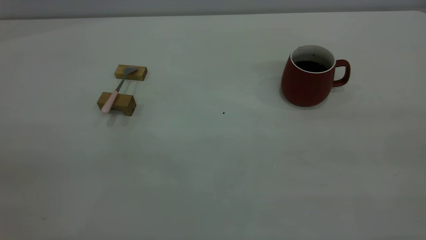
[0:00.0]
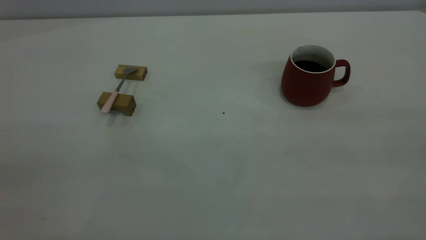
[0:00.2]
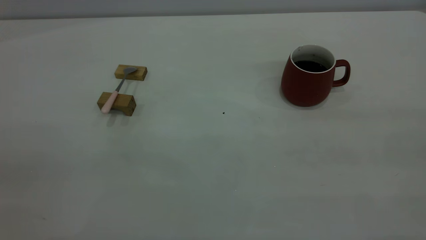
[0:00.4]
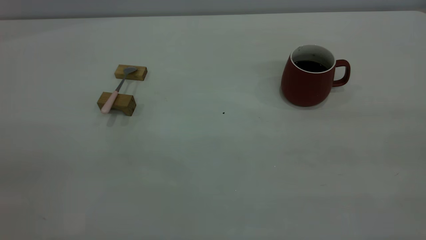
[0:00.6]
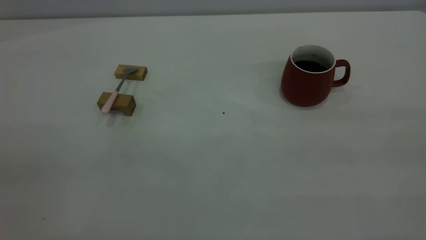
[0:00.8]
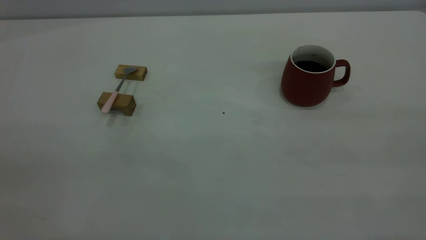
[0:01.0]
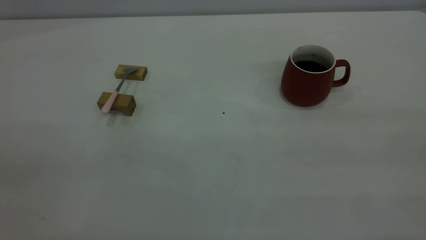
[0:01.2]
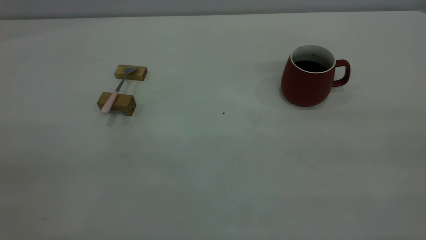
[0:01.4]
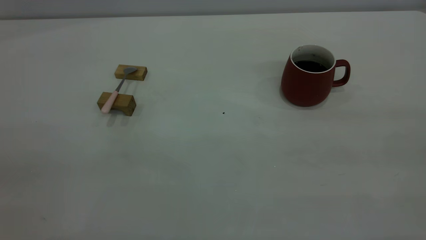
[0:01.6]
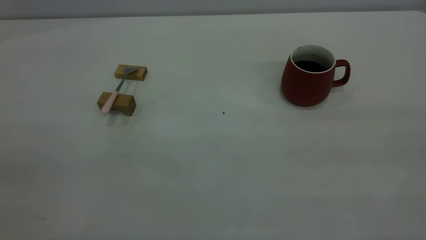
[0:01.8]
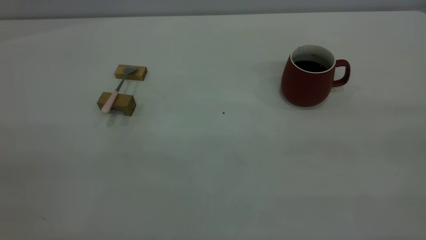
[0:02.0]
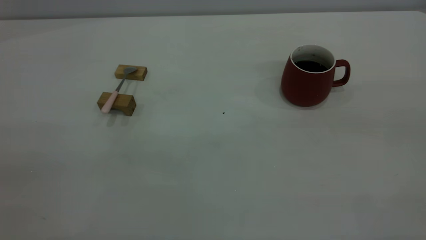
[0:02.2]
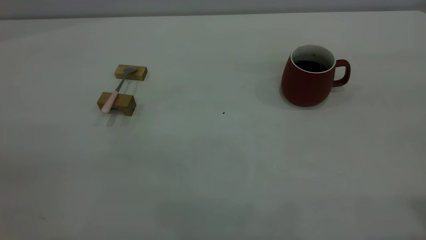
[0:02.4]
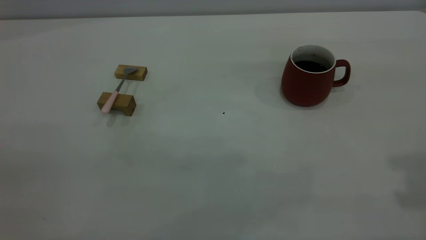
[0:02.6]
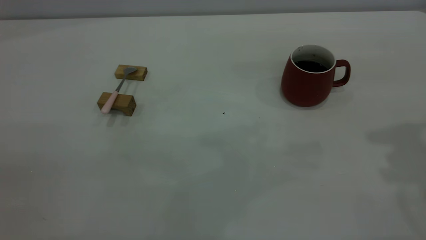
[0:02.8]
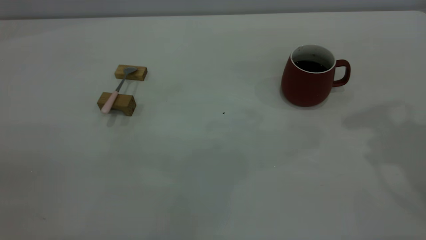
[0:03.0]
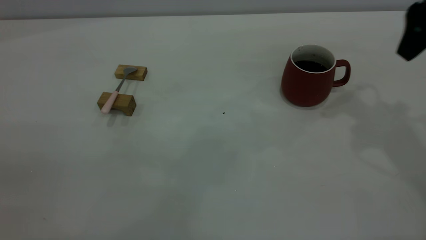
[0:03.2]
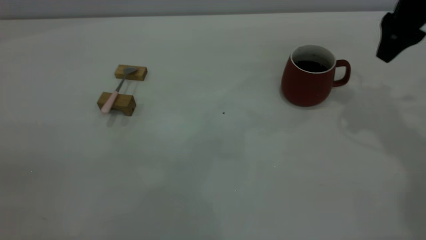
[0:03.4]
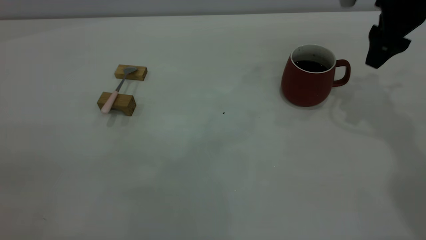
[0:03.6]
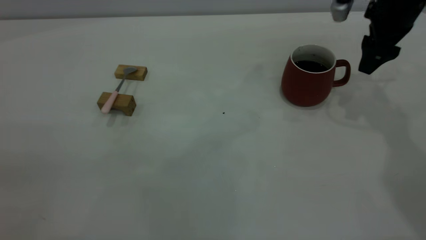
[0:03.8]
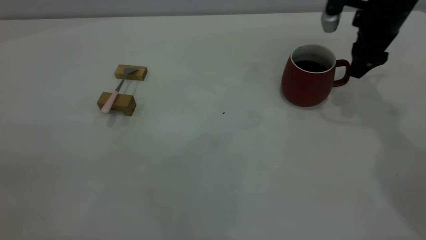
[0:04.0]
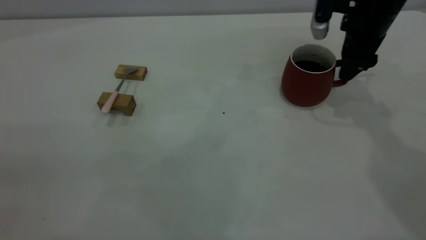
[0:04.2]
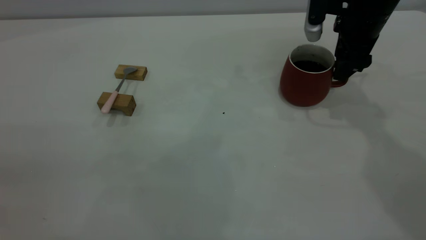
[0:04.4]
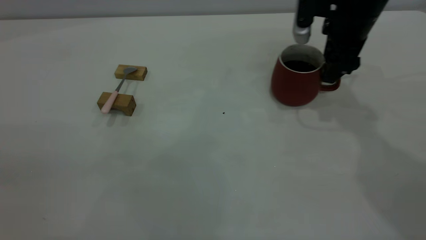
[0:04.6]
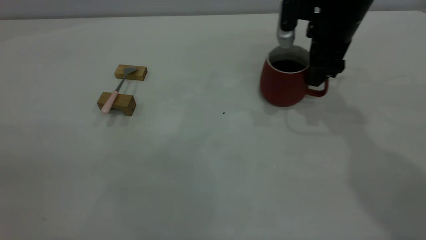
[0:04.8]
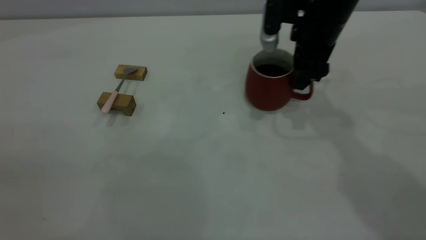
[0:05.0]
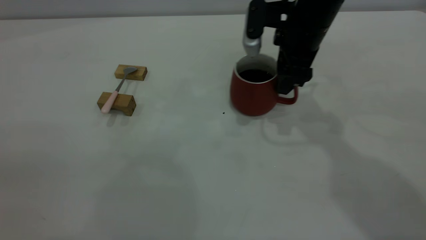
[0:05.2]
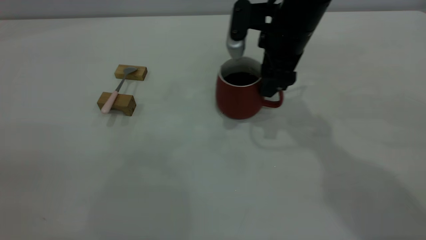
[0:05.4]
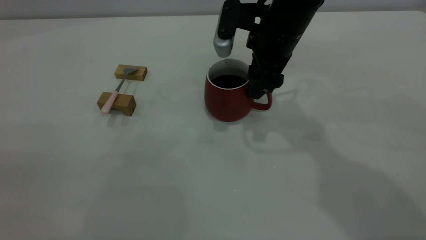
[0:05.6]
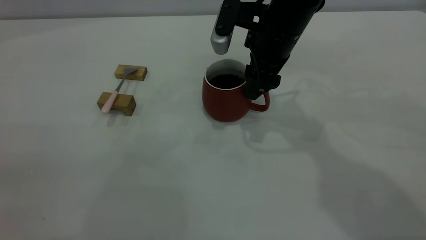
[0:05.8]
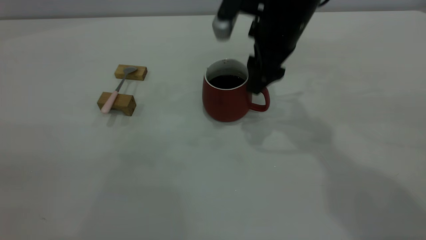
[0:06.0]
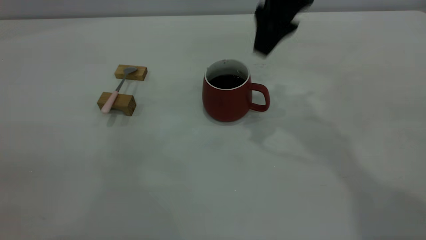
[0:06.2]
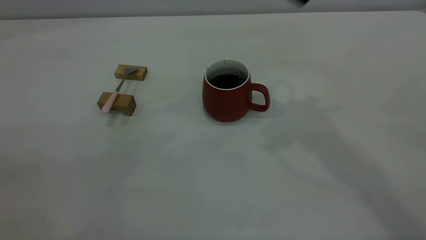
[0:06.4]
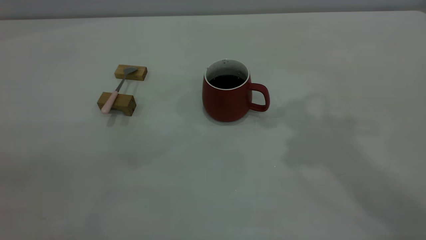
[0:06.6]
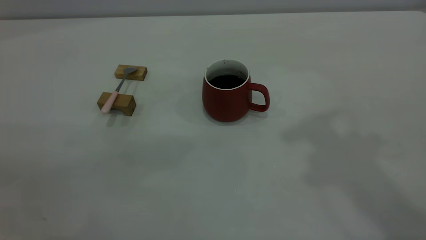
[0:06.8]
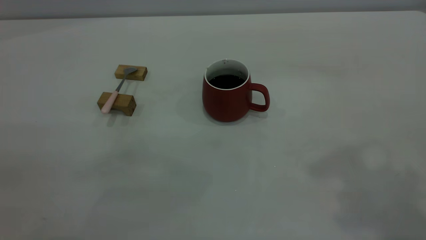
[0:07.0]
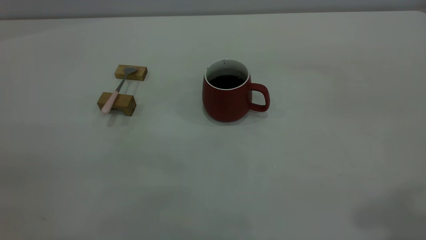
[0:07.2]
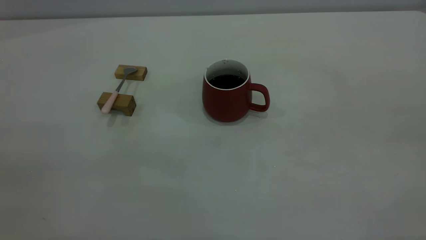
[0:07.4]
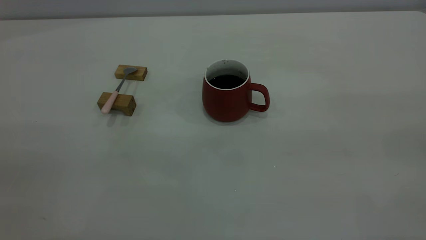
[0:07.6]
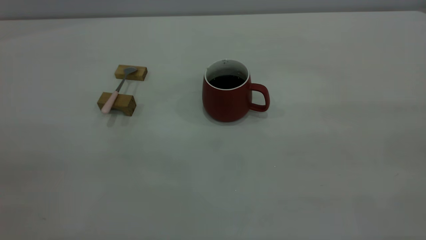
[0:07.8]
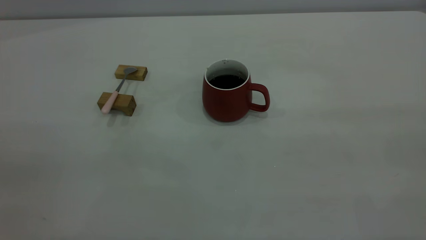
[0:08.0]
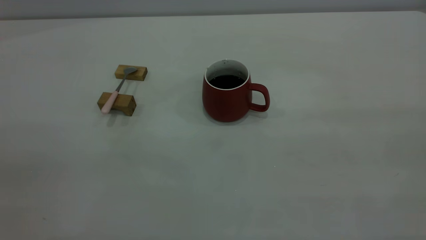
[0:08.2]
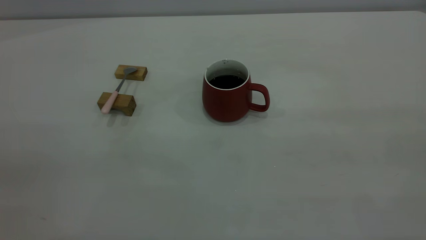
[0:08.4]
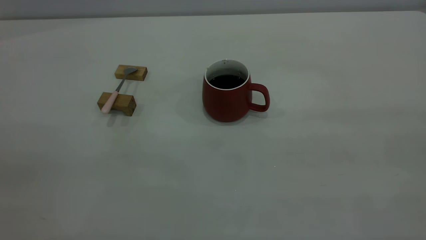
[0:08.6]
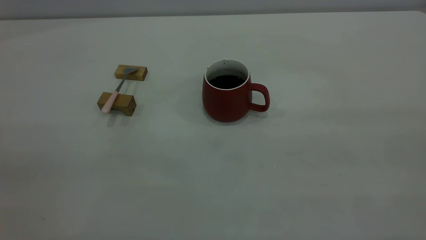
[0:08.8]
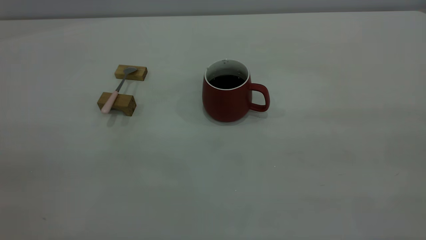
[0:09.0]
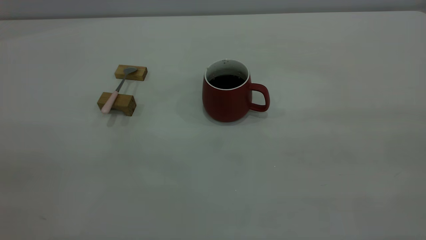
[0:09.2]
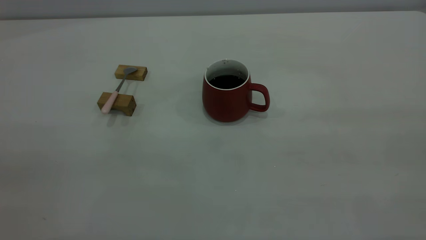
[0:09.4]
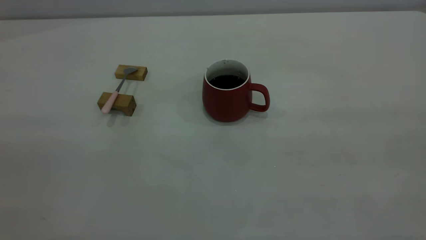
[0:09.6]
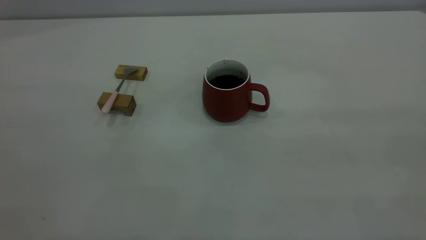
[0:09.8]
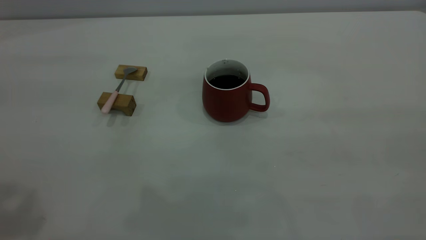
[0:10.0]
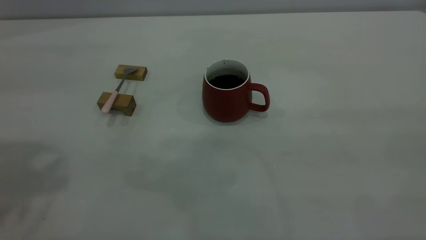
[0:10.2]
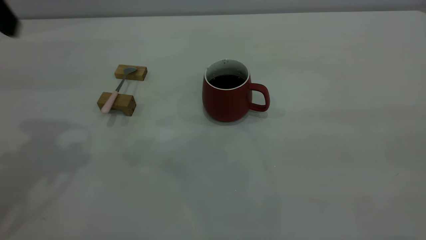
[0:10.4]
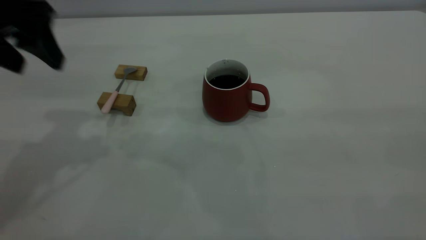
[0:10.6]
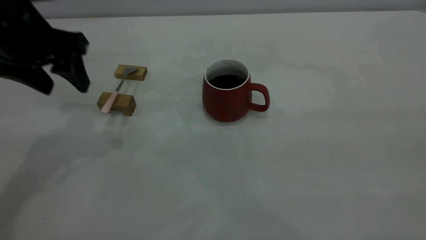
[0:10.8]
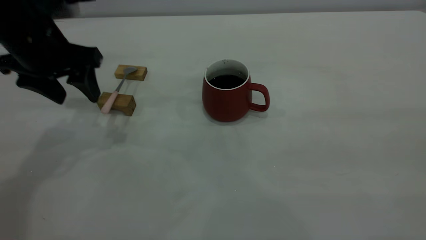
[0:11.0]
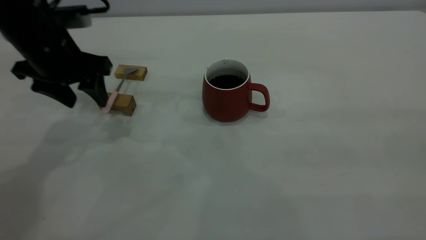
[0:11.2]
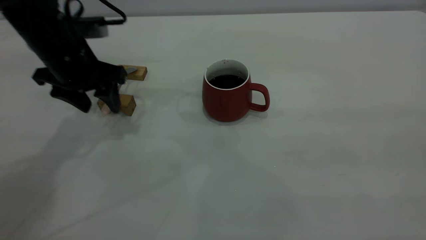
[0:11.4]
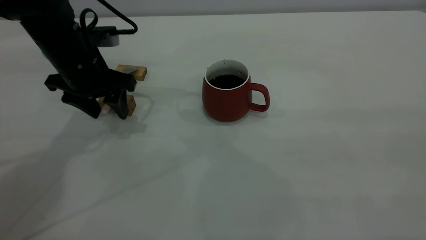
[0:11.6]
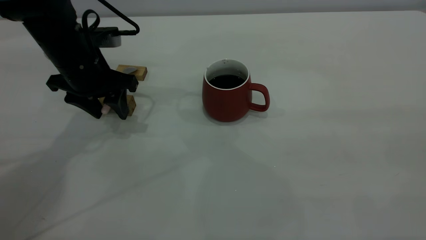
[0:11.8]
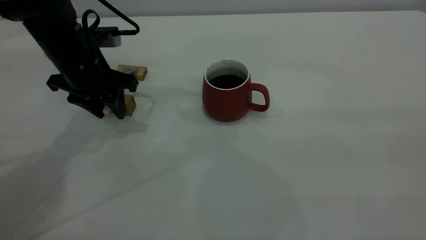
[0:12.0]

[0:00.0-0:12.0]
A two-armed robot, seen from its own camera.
Step, 0.0 to 6.0 s: Move the cup with coffee to the center of view.
0.0 to 1.6 s: Neither gripper changes place.
3.0 to 4.4 s: The right gripper is displaced downward, forward and to the left by approximately 20 cm.
4.4 to 6.0 s: The right gripper travels to the left by about 15 cm.
6.0 to 7.6 s: The right gripper moves backward, to the right and upward, some 50 cm.
10.4 to 12.0 s: The left gripper moves downward and forward, some 20 cm, and closes.

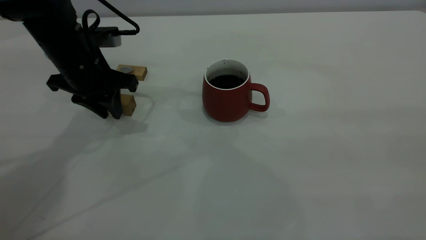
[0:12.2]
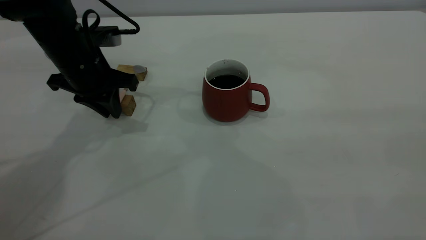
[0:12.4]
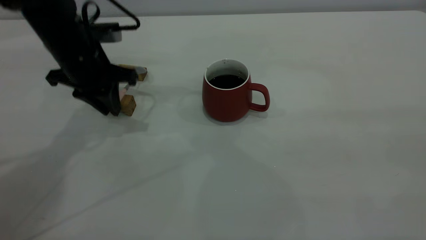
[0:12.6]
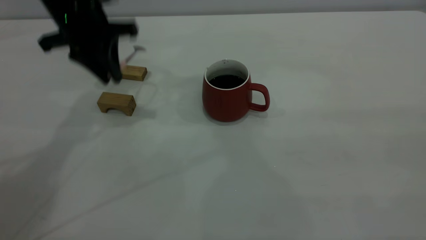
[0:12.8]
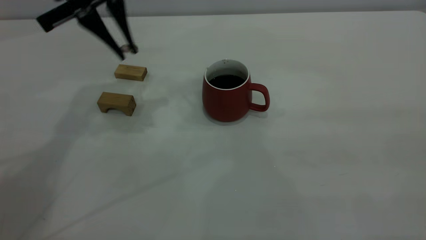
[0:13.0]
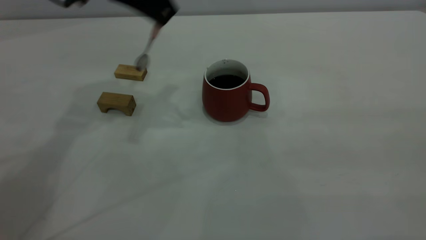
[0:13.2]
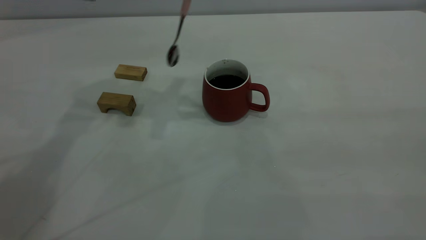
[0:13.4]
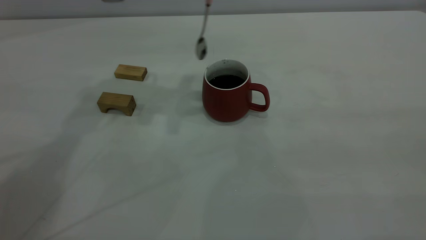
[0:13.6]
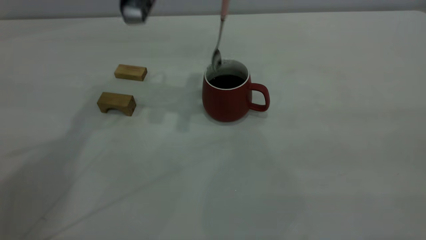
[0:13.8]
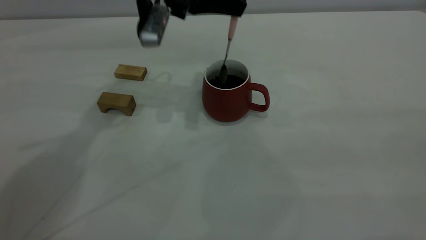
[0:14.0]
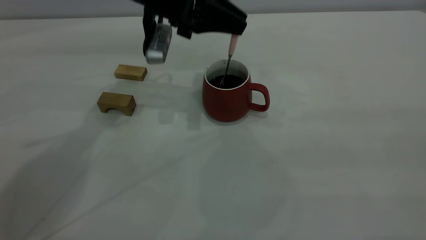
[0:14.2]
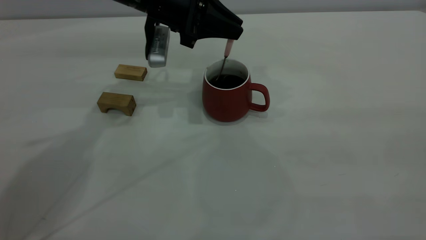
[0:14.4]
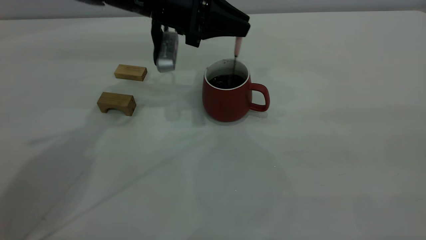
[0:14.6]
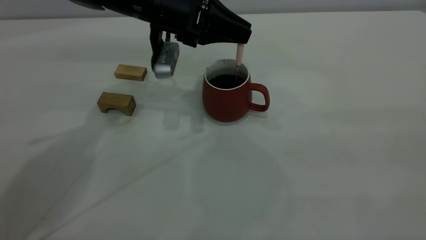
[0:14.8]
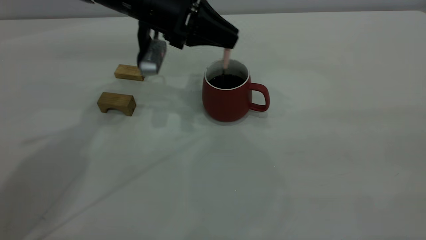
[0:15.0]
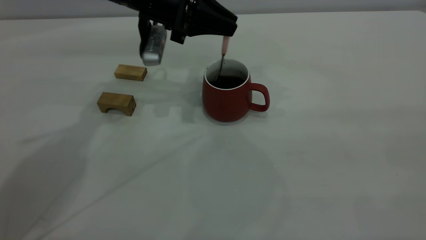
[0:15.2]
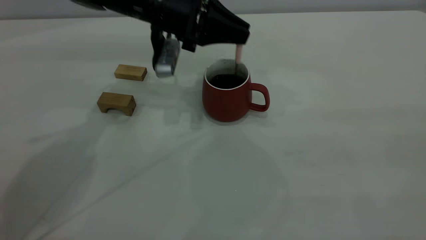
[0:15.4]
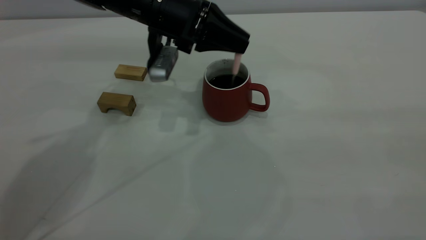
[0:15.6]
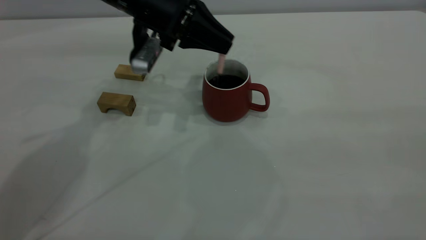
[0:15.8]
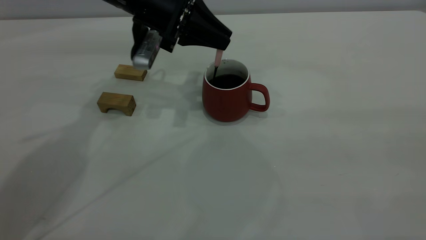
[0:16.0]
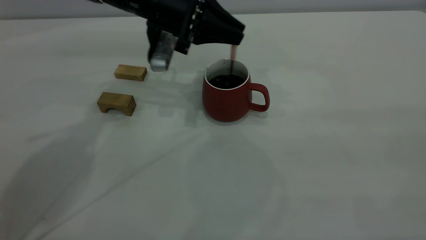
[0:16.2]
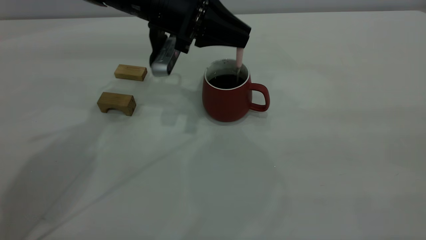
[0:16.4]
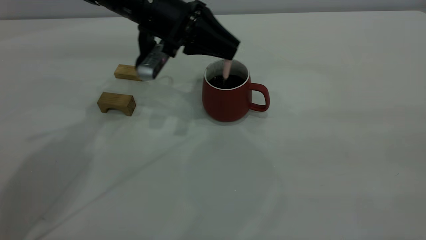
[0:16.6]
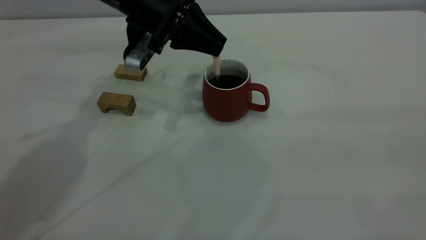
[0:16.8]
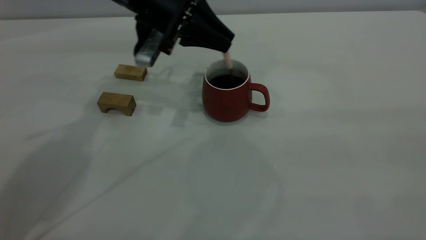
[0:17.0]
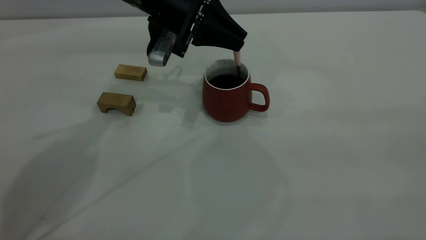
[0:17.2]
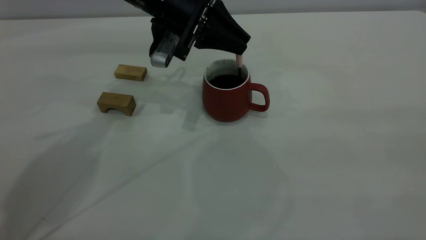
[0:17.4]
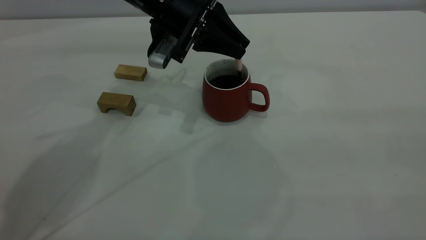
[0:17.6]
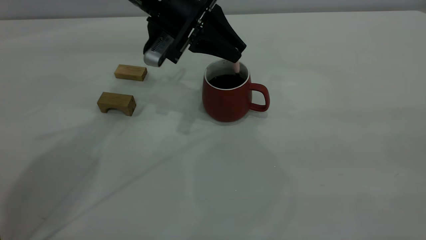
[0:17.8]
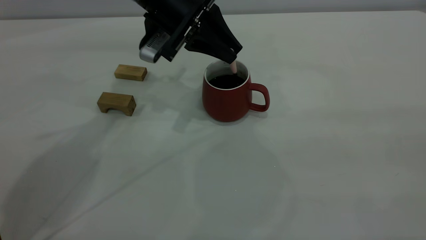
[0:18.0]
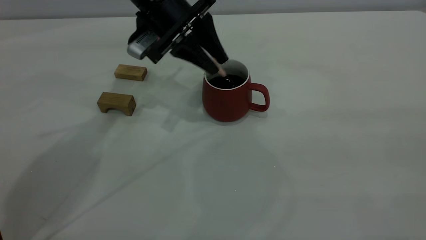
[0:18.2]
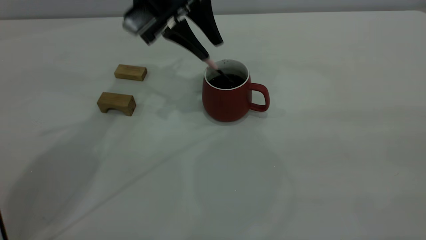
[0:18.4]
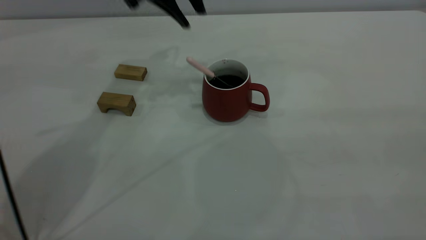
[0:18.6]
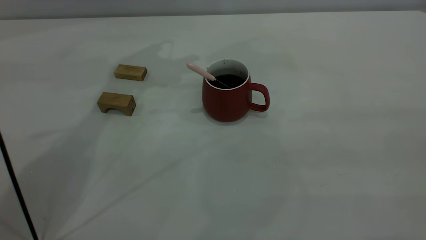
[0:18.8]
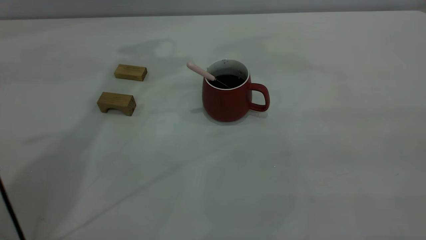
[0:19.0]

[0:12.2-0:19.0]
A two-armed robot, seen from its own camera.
Step, 13.0 to 18.4 s: Stir the coffee in the cup.
12.2 to 13.6 s: The left gripper travels upward and to the right by roughly 20 cm.
13.6 to 15.0 s: The left gripper travels downward by approximately 10 cm.
15.0 to 16.2 s: The grippers stay close to where they were, moving slightly.
16.2 to 17.6 s: The grippers stay close to where they were, moving slightly.
17.6 to 19.0 s: The left gripper shifts roughly 20 cm upward, and opens its fingers.
